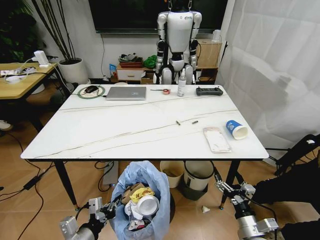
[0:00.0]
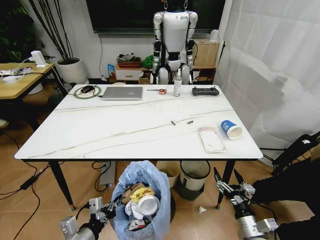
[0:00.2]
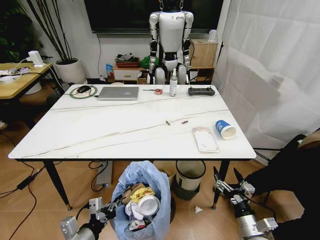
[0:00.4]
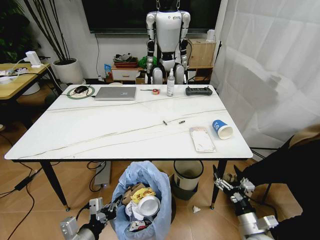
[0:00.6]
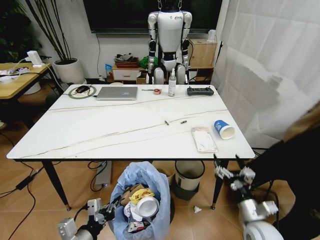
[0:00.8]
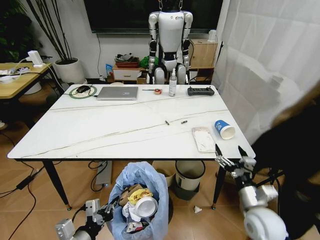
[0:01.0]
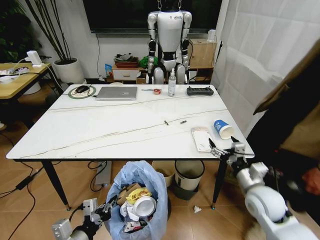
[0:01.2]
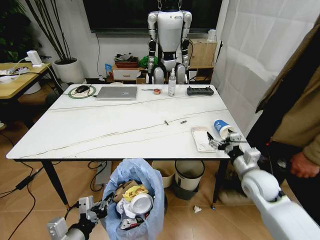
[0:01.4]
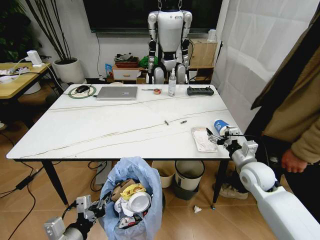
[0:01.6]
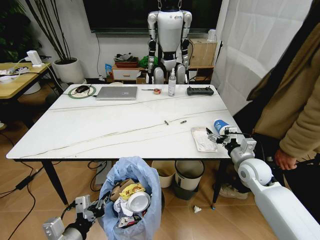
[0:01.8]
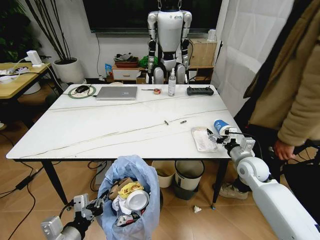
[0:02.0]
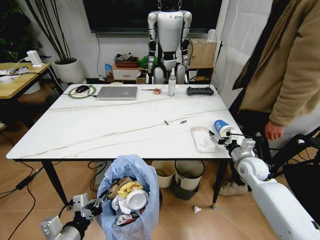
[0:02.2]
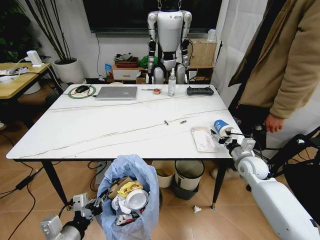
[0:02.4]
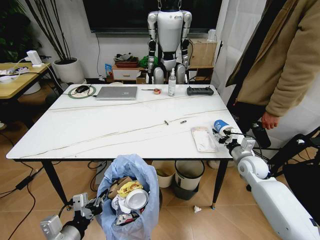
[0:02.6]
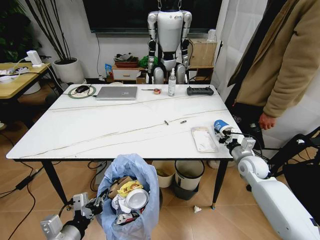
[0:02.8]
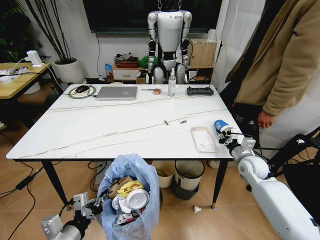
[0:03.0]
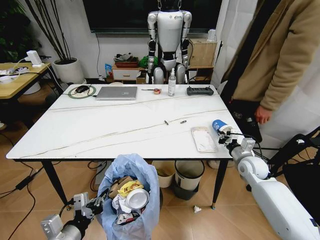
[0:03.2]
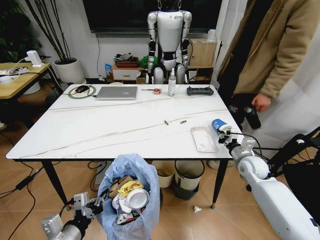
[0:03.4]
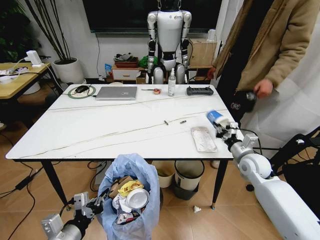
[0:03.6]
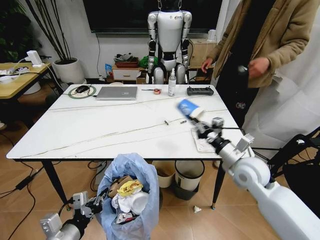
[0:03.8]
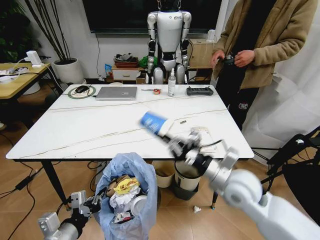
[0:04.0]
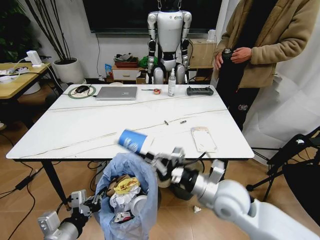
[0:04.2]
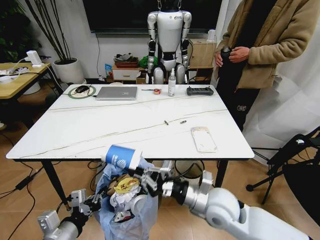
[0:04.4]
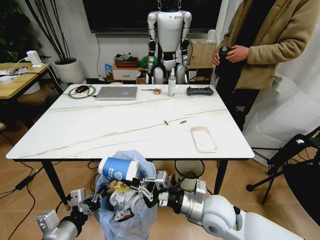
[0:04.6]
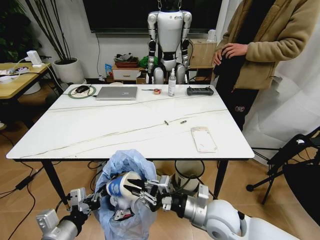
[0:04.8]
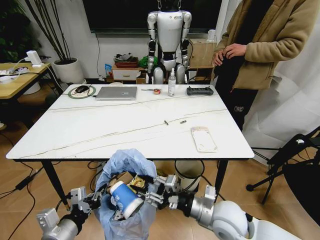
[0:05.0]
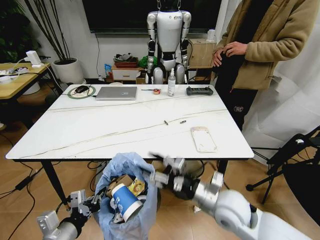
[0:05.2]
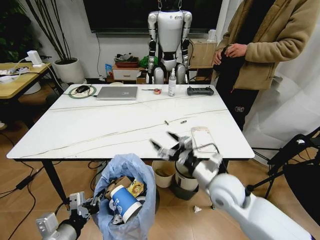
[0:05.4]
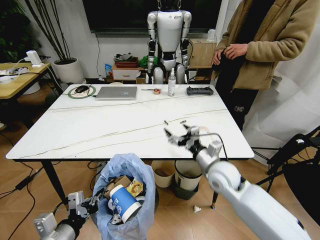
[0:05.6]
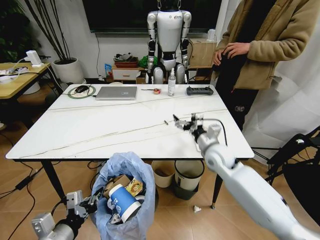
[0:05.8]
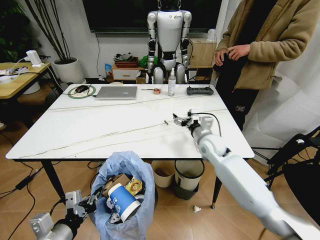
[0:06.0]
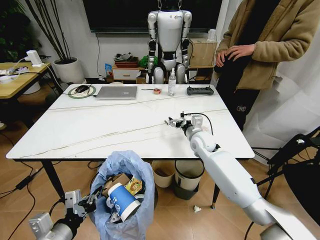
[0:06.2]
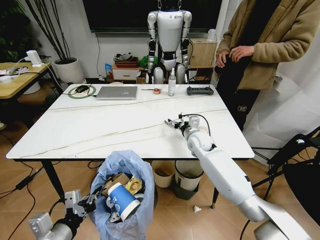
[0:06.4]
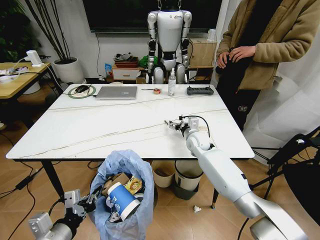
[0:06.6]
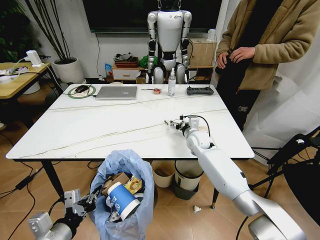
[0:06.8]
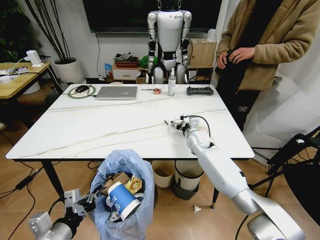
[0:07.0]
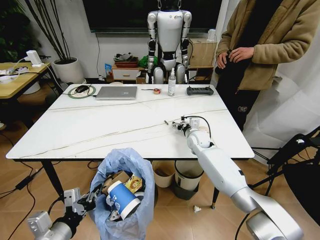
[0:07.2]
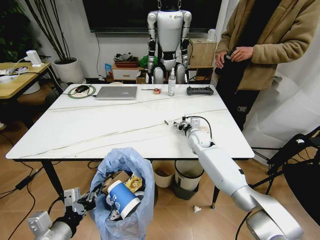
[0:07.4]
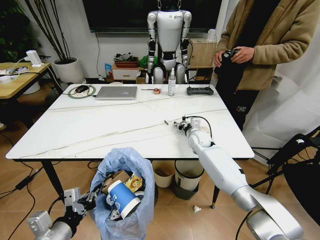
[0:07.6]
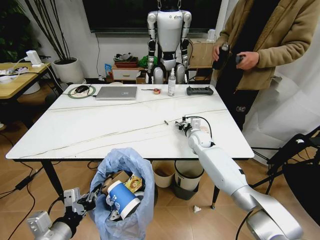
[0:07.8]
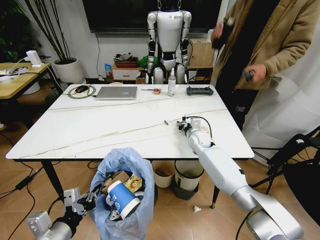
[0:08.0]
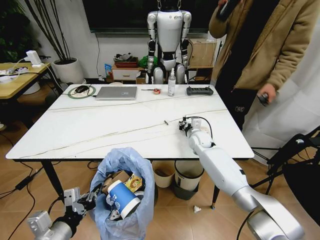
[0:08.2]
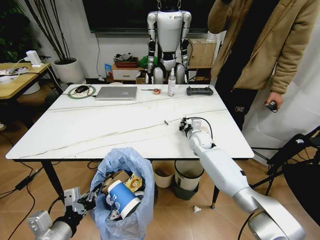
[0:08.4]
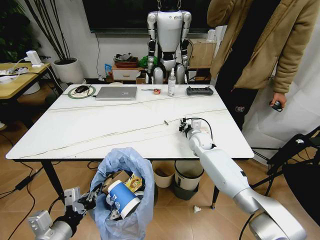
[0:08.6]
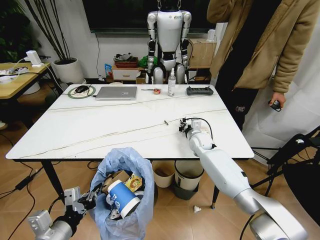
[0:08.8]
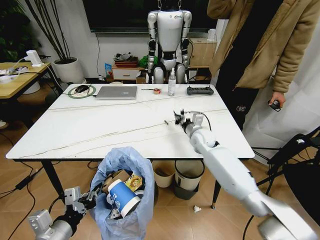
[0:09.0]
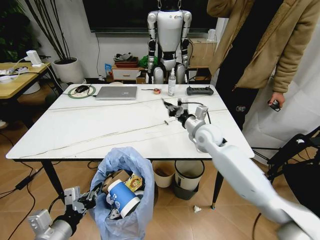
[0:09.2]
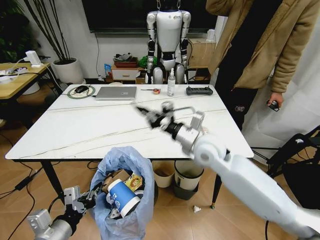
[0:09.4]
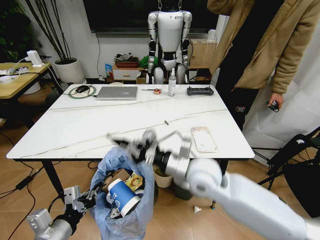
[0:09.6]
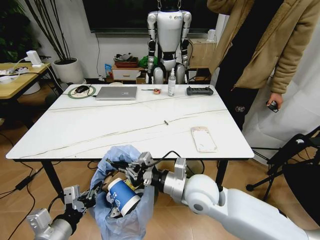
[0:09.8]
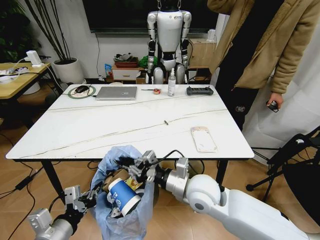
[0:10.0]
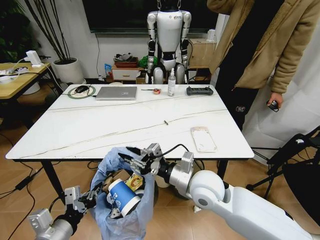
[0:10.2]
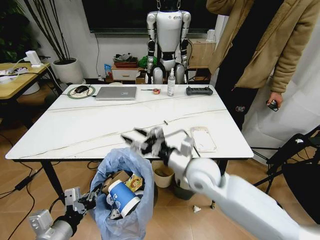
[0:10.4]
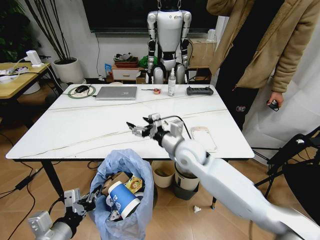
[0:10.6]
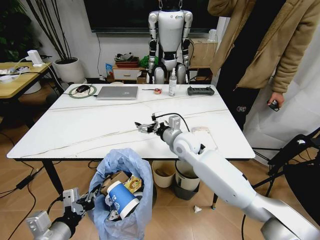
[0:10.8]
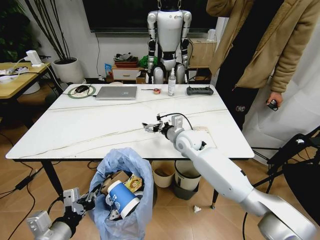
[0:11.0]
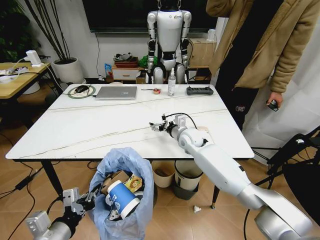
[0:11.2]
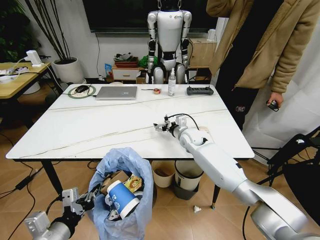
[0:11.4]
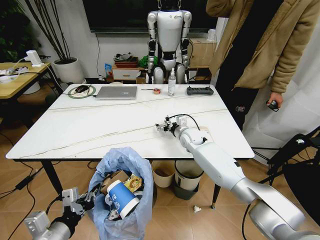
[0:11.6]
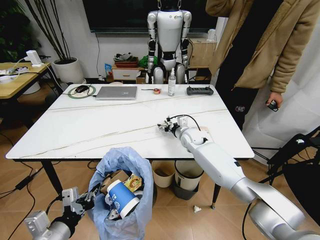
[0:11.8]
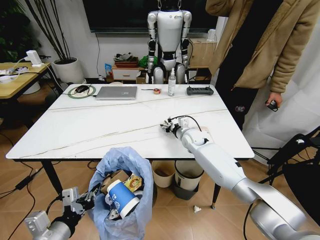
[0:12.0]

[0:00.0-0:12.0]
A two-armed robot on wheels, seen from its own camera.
Task of the whole recording: Pick up the trash bin and place the trash from the table into it.
0:00.0 to 0:01.6: The right gripper shifts some 25 cm forward and upward.
0:01.6 to 0:03.0: The right gripper is displaced forward by approximately 5 cm, and closes up.
0:03.0 to 0:04.4: The right gripper goes some 25 cm to the left and backward.
0:04.4 to 0:06.0: The right gripper shifts approximately 20 cm forward, and opens up.
0:06.0 to 0:07.6: The right gripper is displaced forward and downward by approximately 10 cm.
0:07.6 to 0:09.0: The right gripper closes its fingers.
0:09.0 to 0:10.4: The right gripper heads backward, covering approximately 20 cm, and opens.
0:10.4 to 0:12.0: The right gripper is displaced forward and downward by roughly 25 cm, and opens, then closes once more.

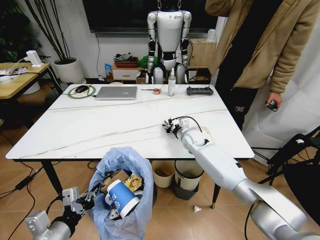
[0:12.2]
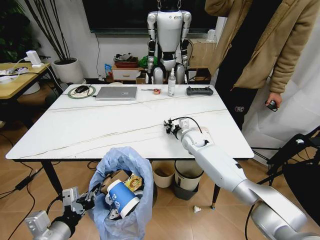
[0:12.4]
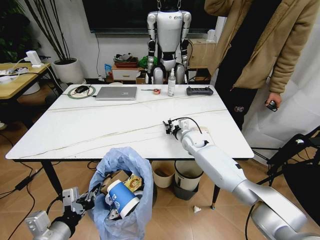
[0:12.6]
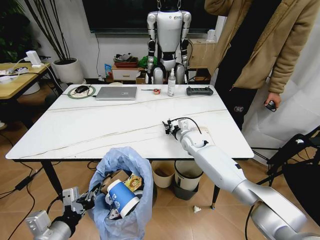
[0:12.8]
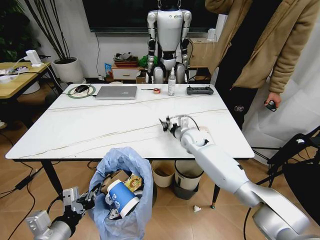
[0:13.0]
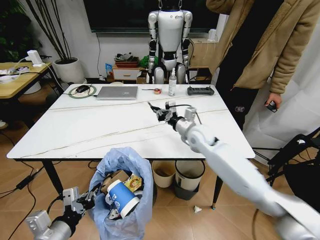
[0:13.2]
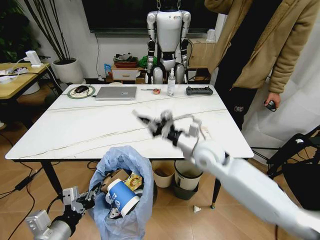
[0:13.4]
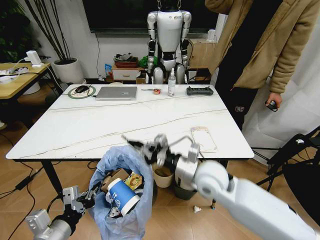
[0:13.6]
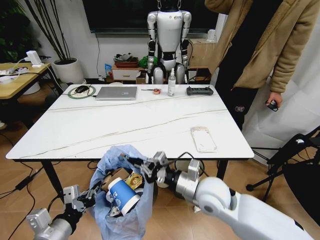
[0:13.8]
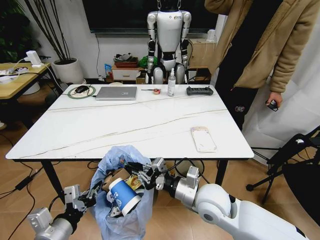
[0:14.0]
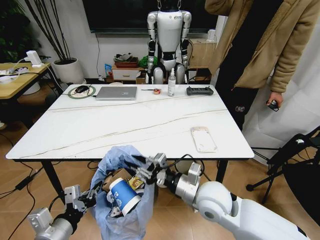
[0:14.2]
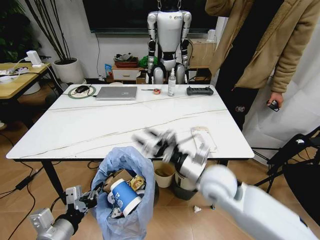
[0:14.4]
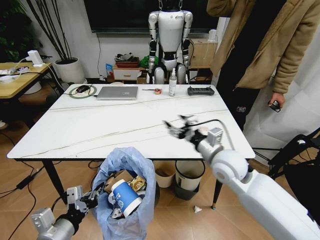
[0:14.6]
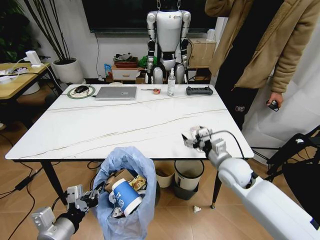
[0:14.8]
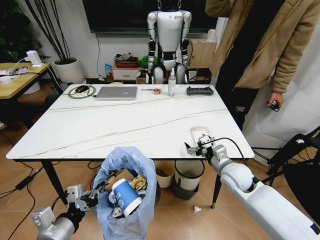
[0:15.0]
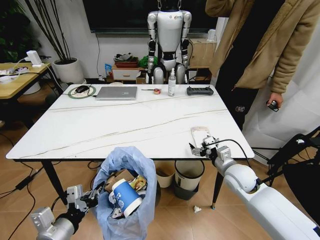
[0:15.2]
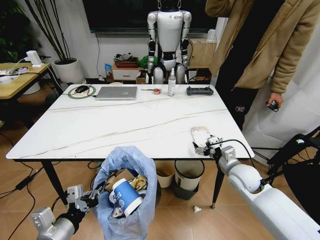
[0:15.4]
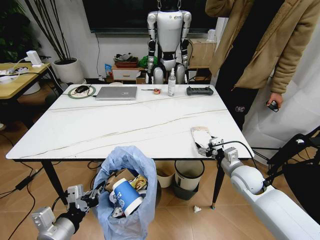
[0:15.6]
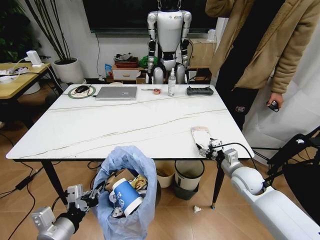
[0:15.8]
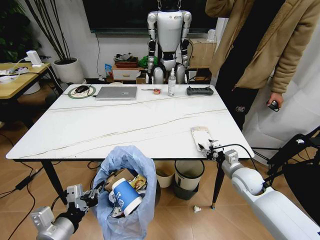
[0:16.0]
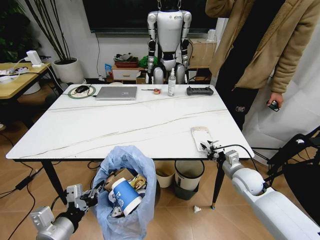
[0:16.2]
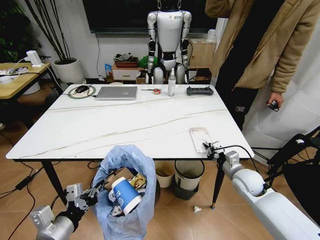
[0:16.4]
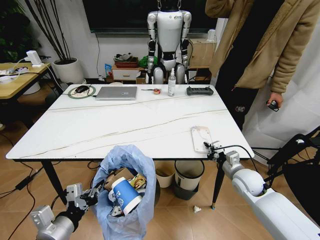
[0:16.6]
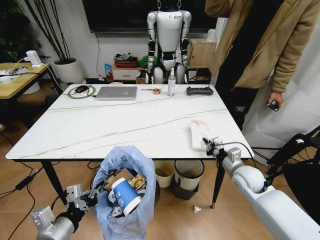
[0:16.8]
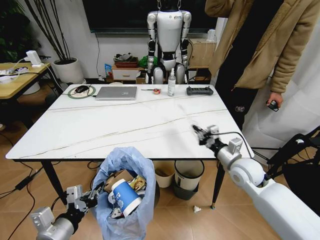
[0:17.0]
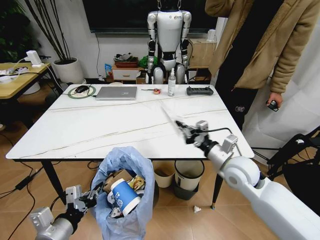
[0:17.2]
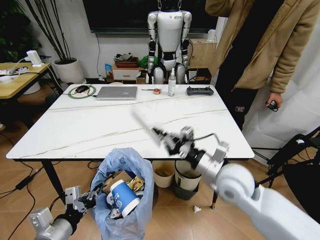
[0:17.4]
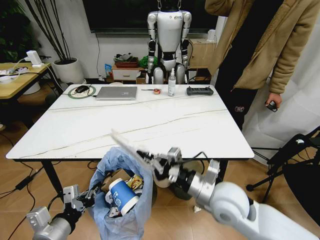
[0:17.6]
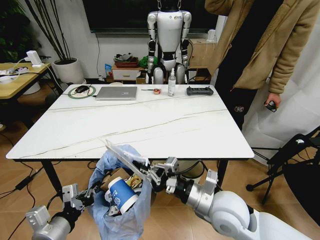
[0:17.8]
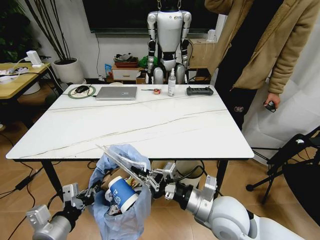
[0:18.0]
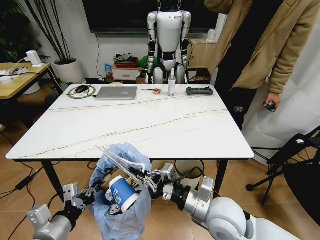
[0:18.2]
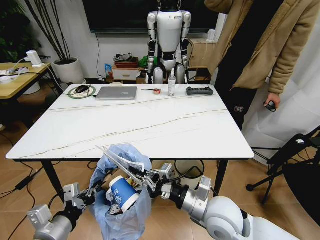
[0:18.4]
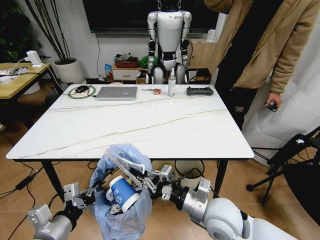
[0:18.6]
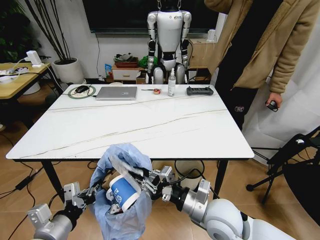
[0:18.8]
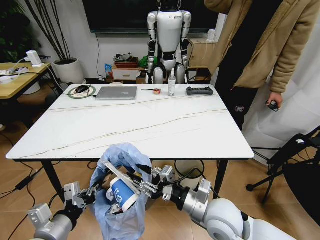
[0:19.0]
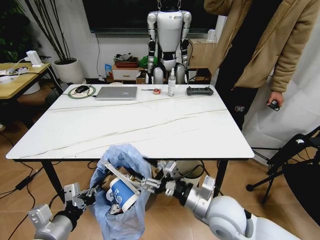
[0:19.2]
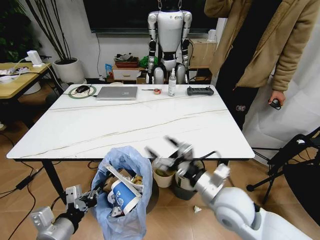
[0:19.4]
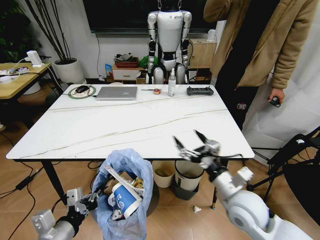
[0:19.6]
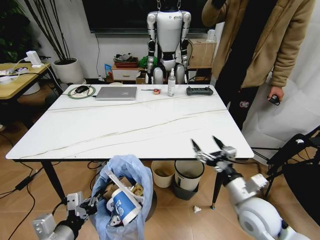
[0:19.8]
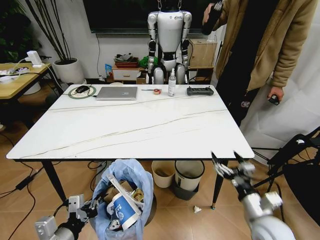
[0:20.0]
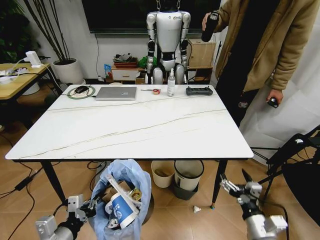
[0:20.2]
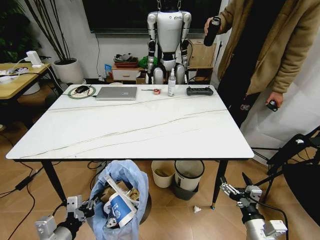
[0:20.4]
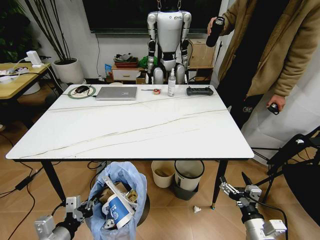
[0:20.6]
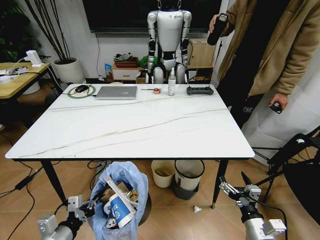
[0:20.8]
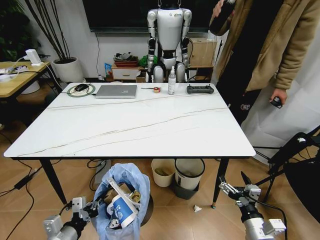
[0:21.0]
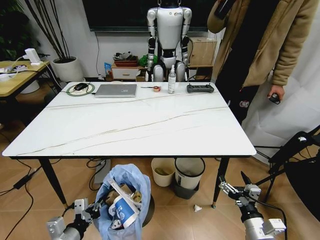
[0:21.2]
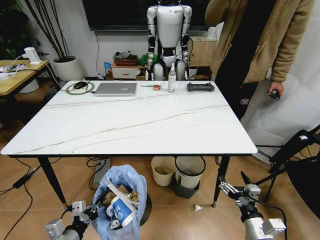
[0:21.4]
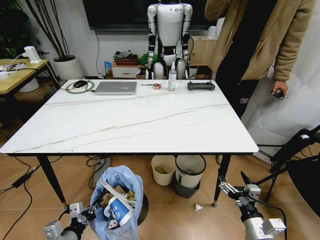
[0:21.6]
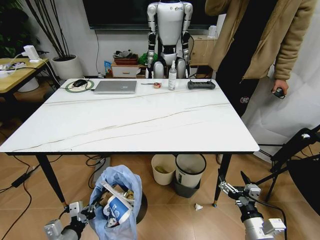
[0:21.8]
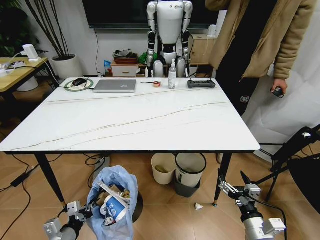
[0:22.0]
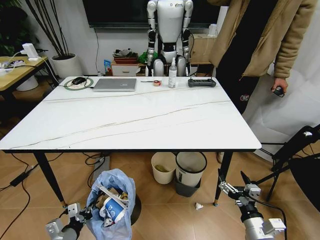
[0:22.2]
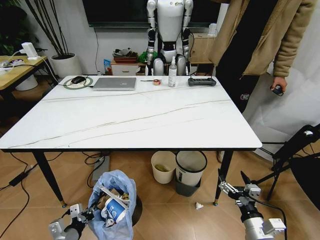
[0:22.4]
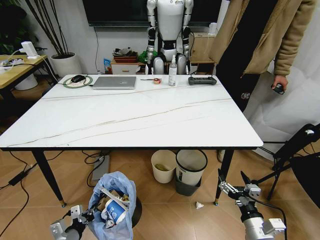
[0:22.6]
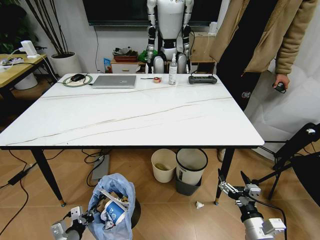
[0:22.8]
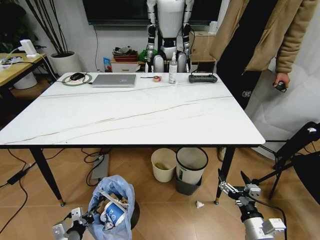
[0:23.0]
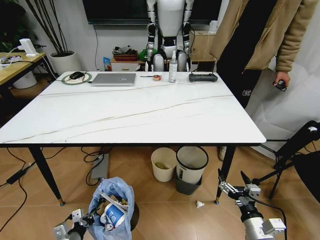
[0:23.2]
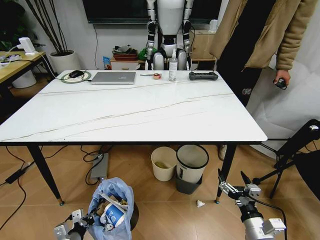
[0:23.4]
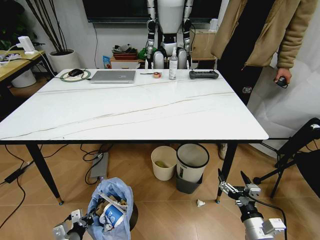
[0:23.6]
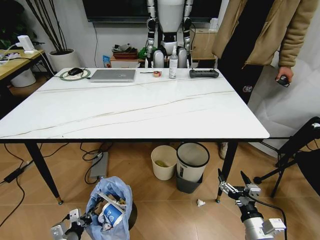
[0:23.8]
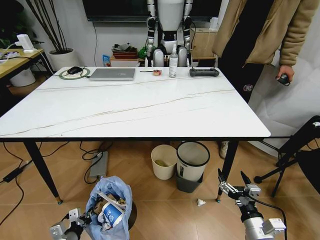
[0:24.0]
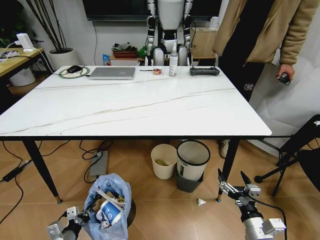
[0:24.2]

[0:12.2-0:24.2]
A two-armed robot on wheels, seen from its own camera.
Task of the whole recording: Pick up the trash bin and place the trash from the table into it.
0:12.2 to 0:13.8: The right gripper moves backward, roughly 25 cm, and closes.
0:13.8 to 0:15.2: The right gripper travels to the right and forward by roughly 15 cm, and opens its fingers.
0:15.2 to 0:16.6: The right gripper ends up approximately 5 cm from where it was, and closes up.
0:16.6 to 0:18.2: The right gripper moves to the left, backward and upward, some 25 cm.
0:18.2 to 0:19.8: The right gripper shifts about 10 cm to the right, and opens up.
0:19.8 to 0:21.2: The left gripper goes about 10 cm downward. The right gripper travels downward and backward by roughly 10 cm.
0:21.2 to 0:22.6: The left gripper goes about 10 cm downward.
